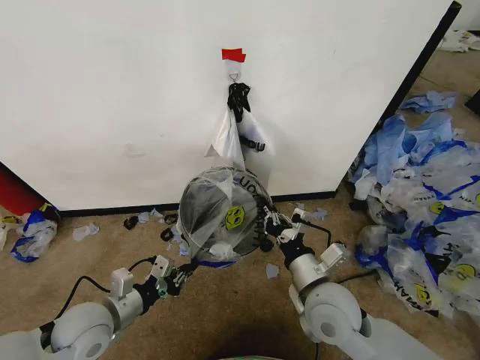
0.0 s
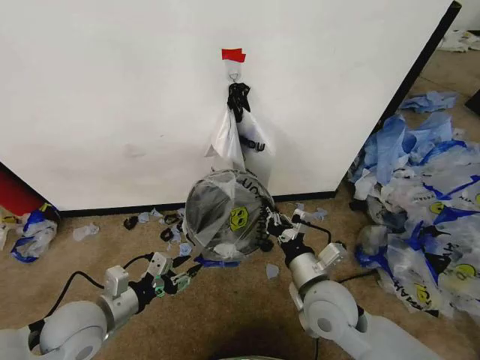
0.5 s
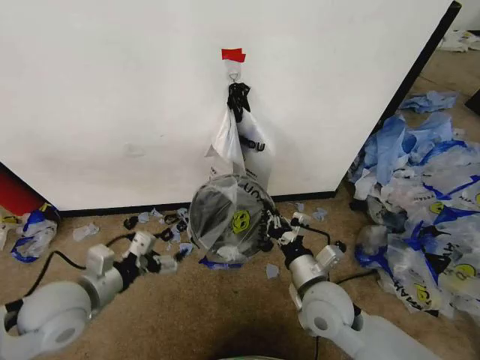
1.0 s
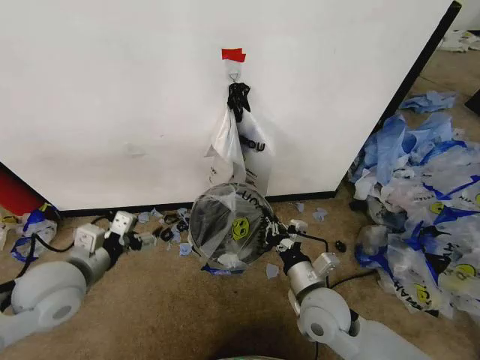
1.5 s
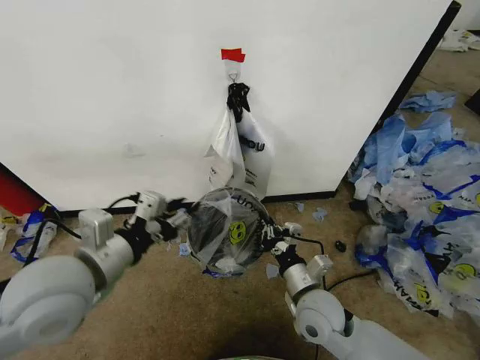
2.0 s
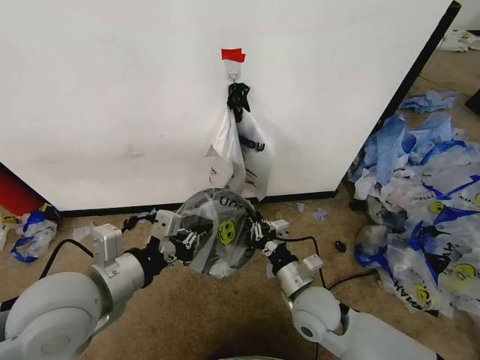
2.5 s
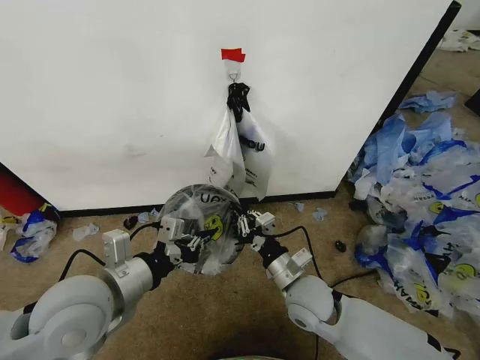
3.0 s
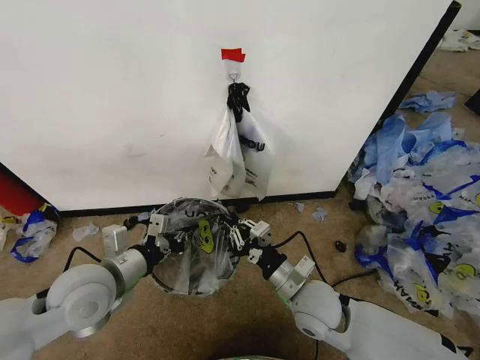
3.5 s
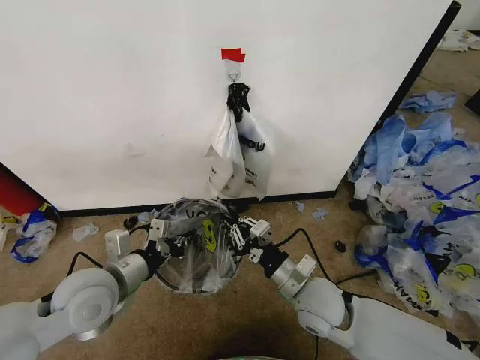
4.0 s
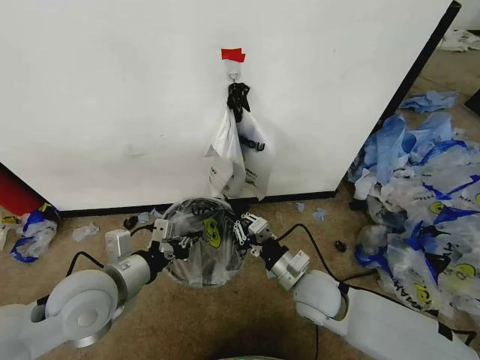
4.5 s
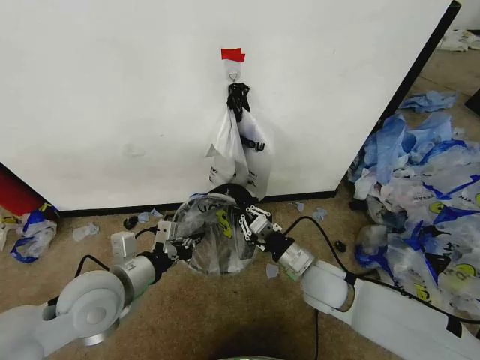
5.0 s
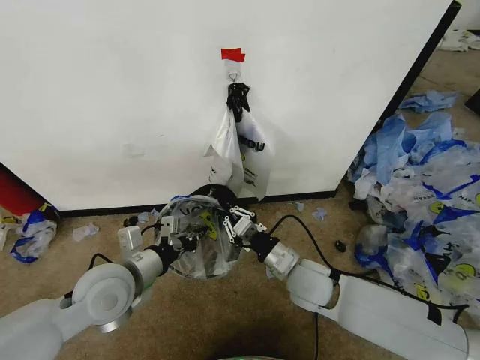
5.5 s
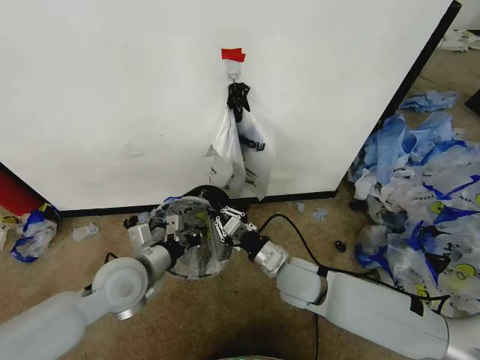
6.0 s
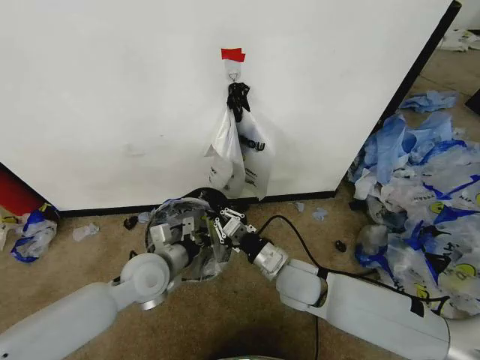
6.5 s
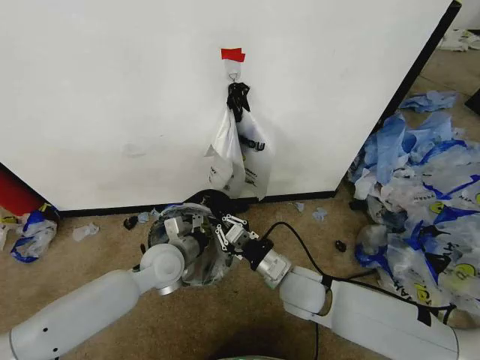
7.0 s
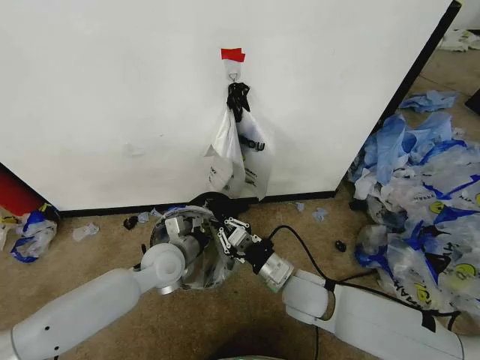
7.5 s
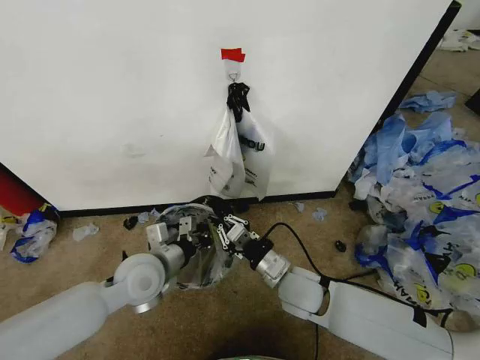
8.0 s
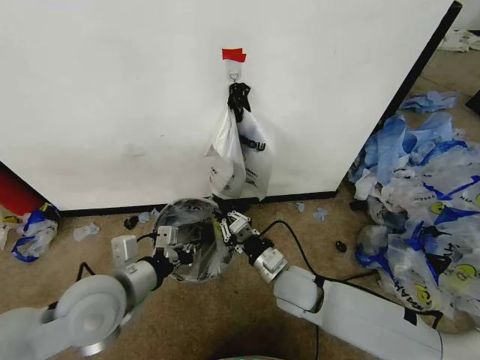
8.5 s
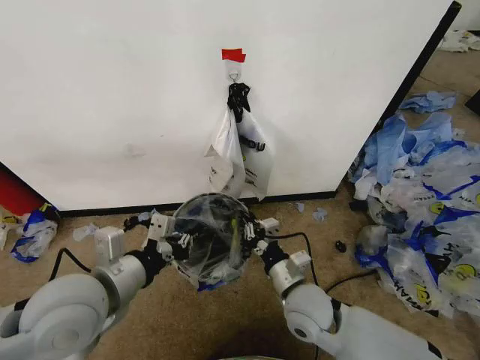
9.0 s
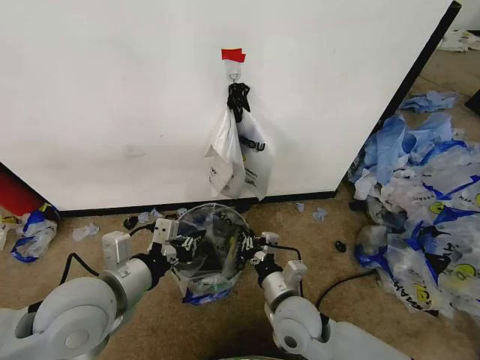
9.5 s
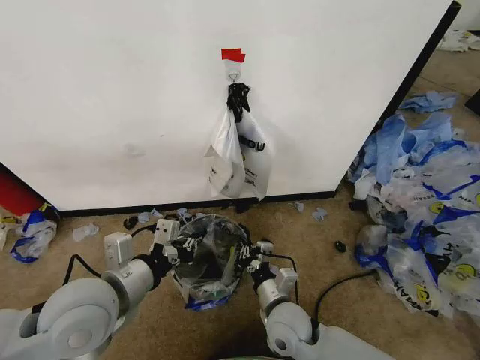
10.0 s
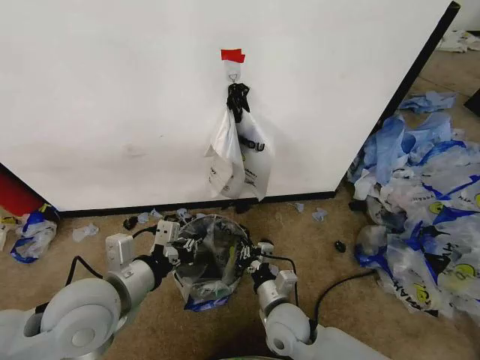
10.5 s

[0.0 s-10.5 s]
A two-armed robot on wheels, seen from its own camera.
Task of the whole recording: Pick up the garbage bag from the wall and place it over the trash bin.
0.0 to 2.0 s: The left gripper shifts approximately 20 cm upward, and opens and closes again. Meanwhile the right gripper heads downward, covering some 5 cm.
2.0 to 4.0 s: The left gripper heads downward, covering some 10 cm, and closes.
4.0 to 6.5 s: The right gripper moves about 5 cm, while the left gripper goes about 10 cm forward, downward and to the right.
6.5 to 8.5 s: The left gripper goes roughly 15 cm backward and upward.
8.5 to 10.5 s: The right gripper heads downward and backward, covering approximately 10 cm.

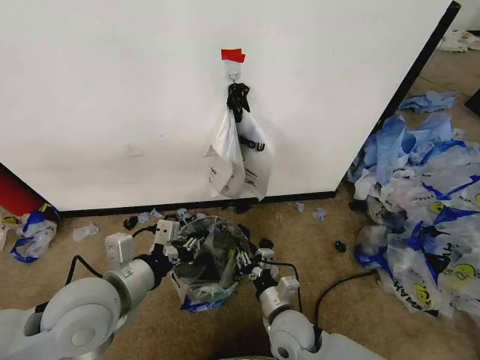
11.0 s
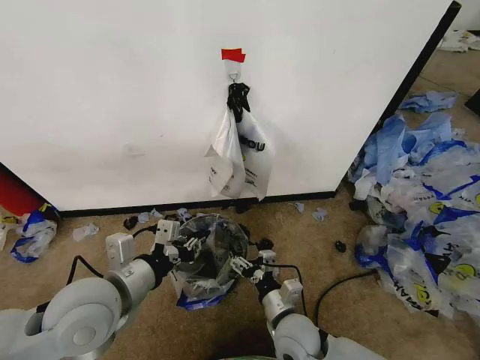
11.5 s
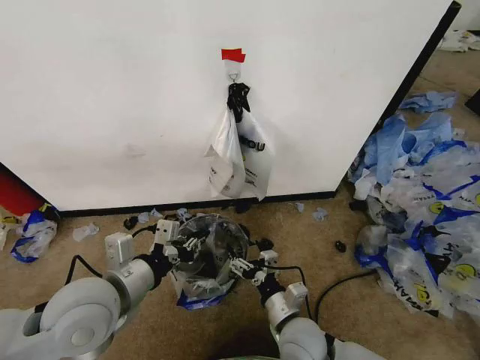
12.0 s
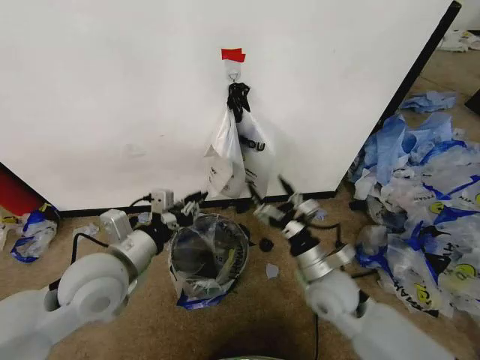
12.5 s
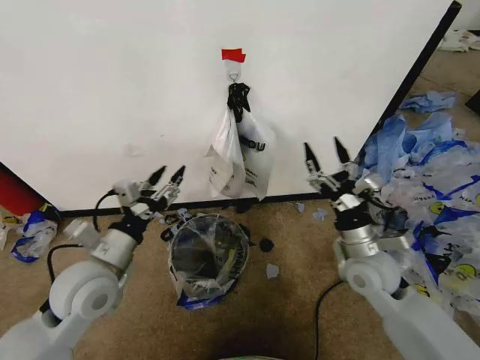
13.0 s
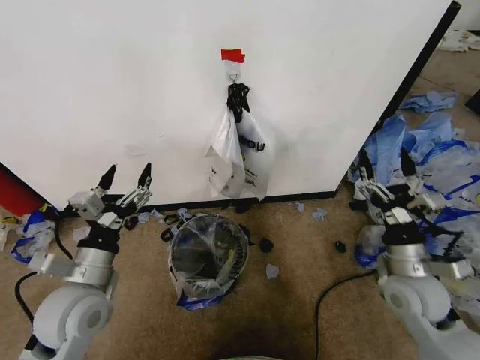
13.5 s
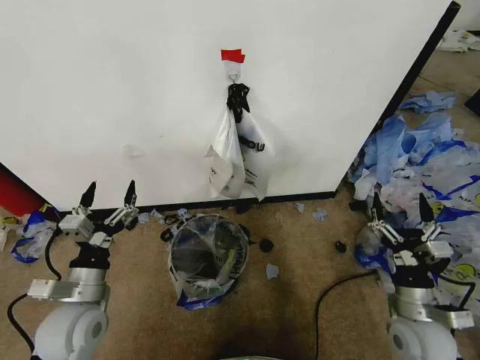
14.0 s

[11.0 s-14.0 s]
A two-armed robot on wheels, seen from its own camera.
Task of the whole recording: Pick up the garbage bag from the wall and place it over the trash bin.
11.0 to 12.5 s: The right gripper moves upward, to the right and forward, about 15 cm, and opens its fingers.
12.5 to 14.0 s: The right gripper travels to the right and backward by roughly 15 cm. The left gripper moves downward and to the left, roughly 15 cm, and opens its fingers.

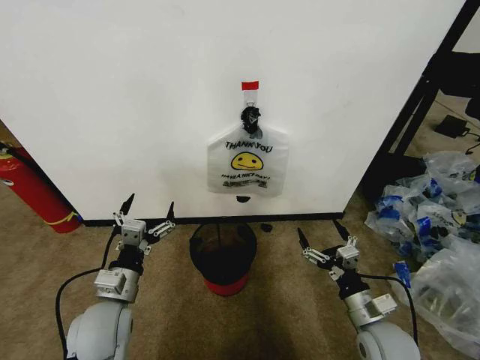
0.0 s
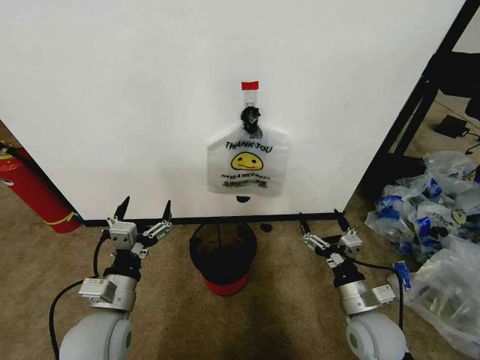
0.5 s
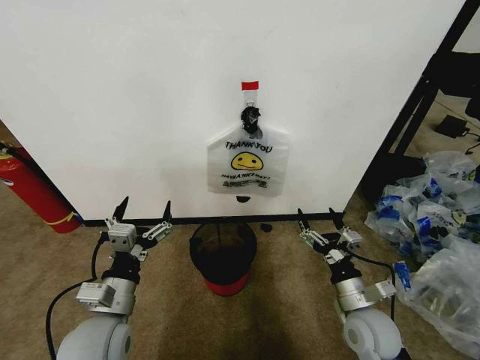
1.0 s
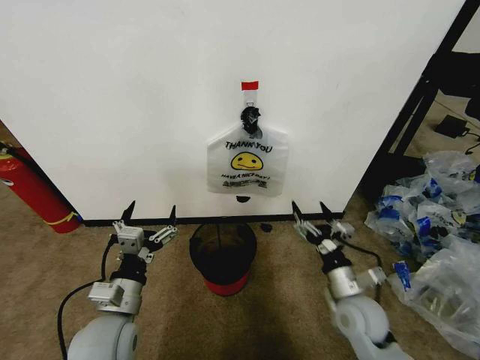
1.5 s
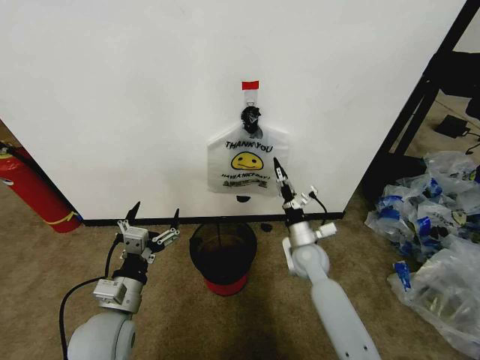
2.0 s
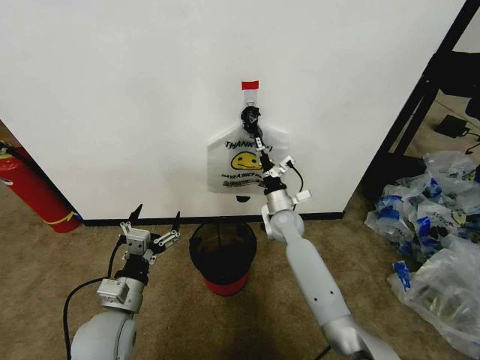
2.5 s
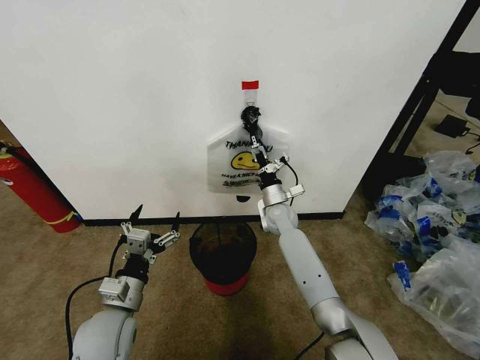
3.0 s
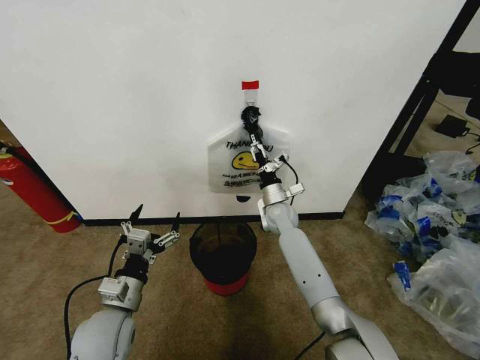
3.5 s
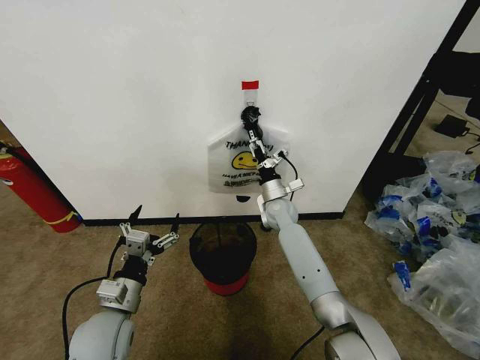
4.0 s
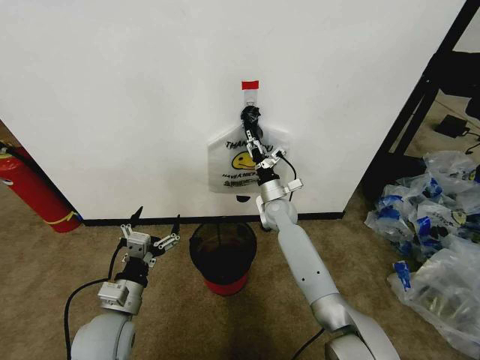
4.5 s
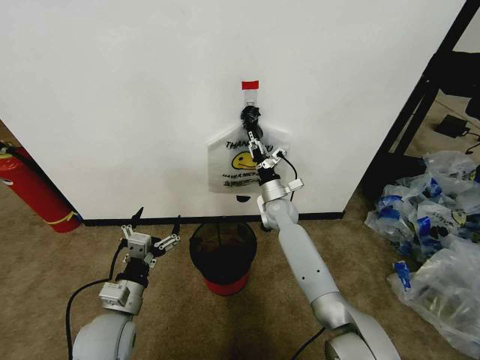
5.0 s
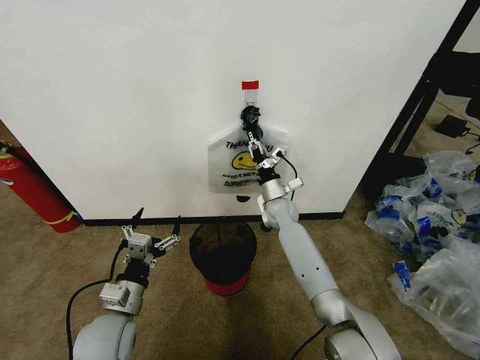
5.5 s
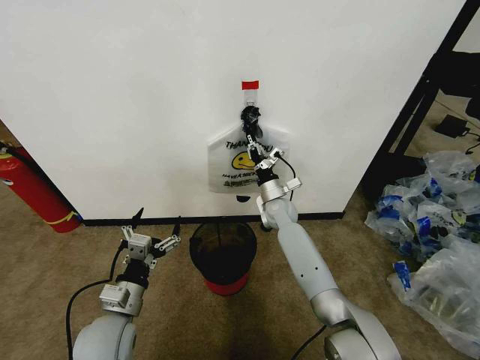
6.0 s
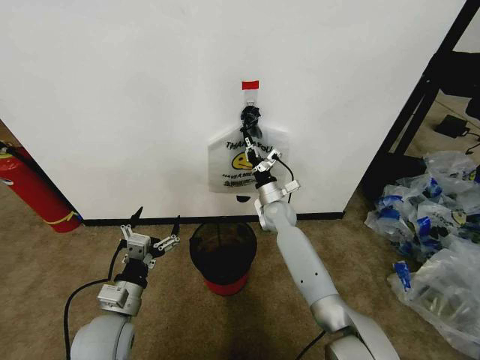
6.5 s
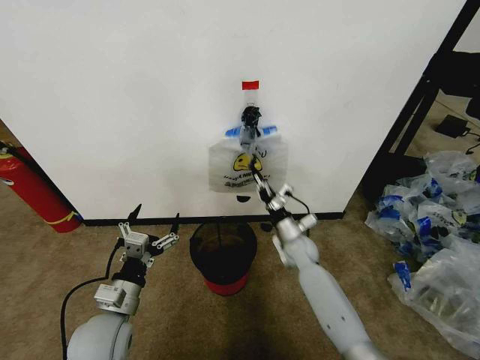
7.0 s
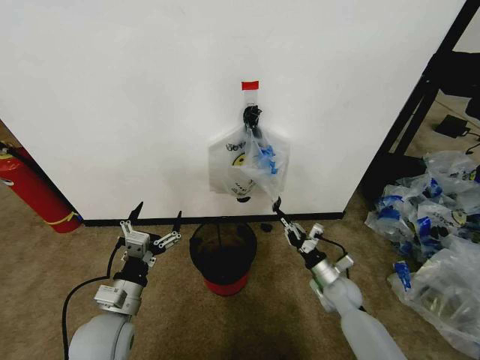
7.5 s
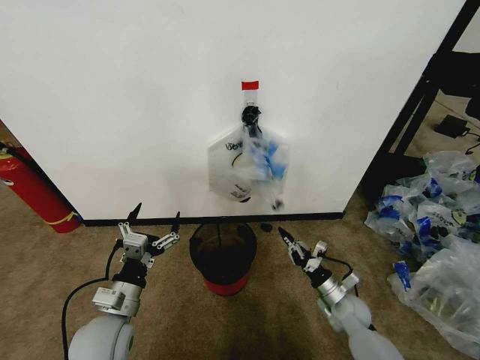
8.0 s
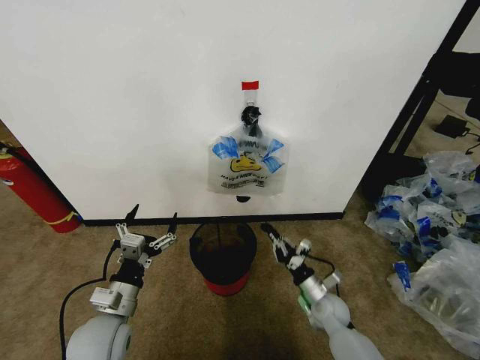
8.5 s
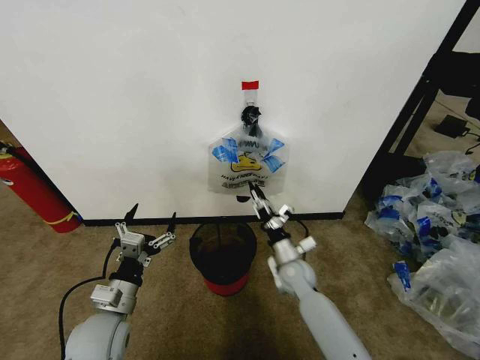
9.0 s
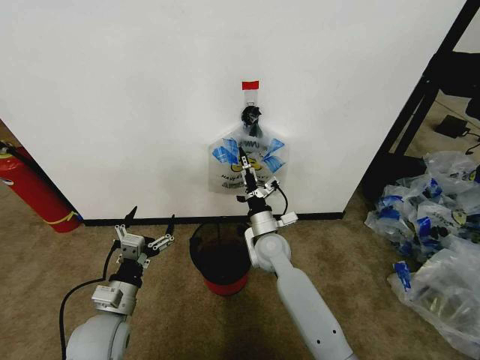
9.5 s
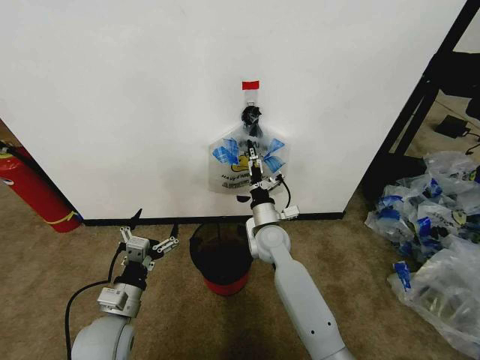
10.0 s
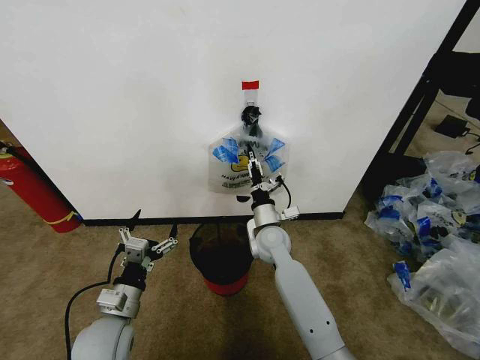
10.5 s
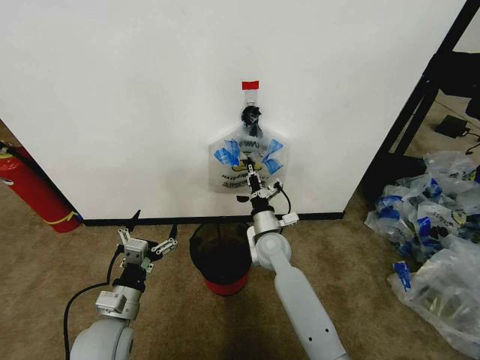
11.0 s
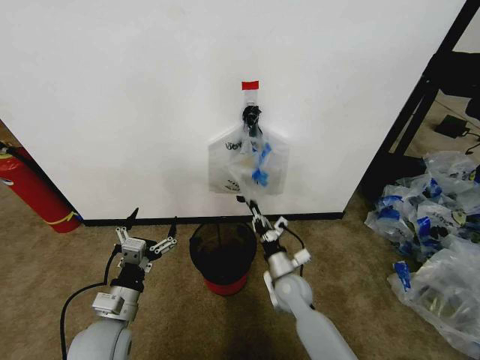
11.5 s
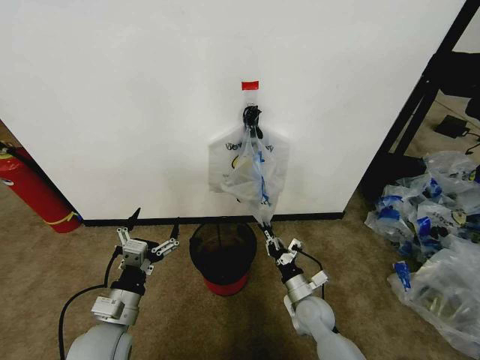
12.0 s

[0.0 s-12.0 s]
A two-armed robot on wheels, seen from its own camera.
Task of the whole recording: Pick up the garbage bag from the wall and place it over the trash bin.
2.0 to 4.0 s: The right gripper shifts approximately 15 cm forward and to the left.
4.0 to 6.0 s: The right gripper closes its fingers.
6.0 to 8.0 s: The right gripper is displaced backward, to the right and downward by about 35 cm.
8.0 to 10.0 s: The right gripper shifts some 30 cm to the left, upward and forward, and opens.
10.0 to 12.0 s: The right gripper shifts some 25 cm downward, backward and to the right, and closes its fingers.
